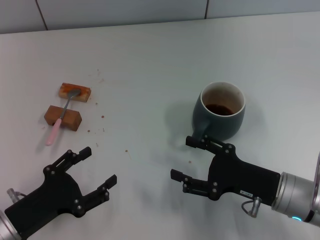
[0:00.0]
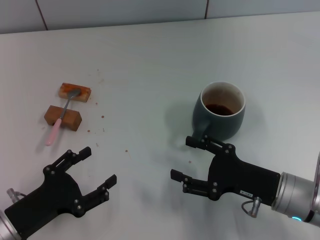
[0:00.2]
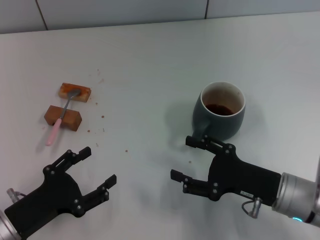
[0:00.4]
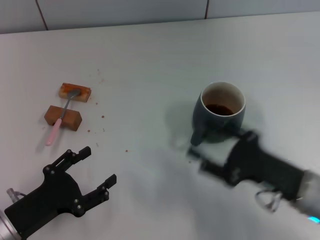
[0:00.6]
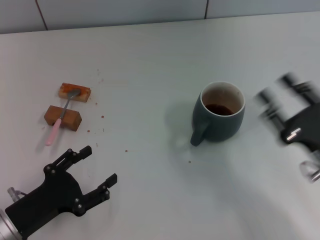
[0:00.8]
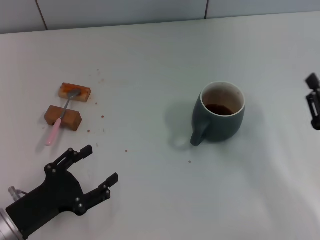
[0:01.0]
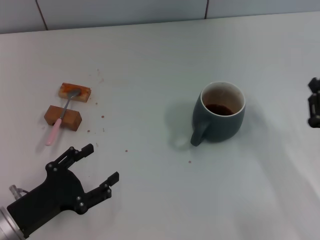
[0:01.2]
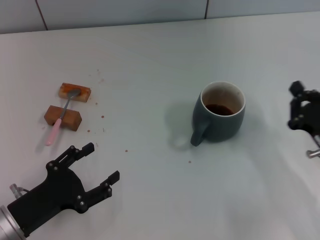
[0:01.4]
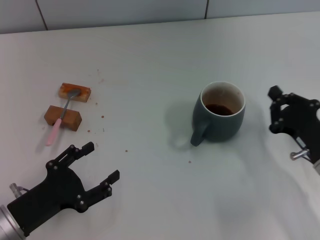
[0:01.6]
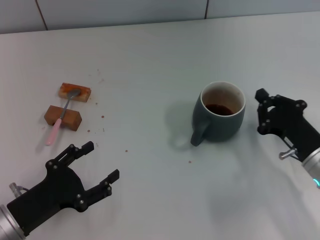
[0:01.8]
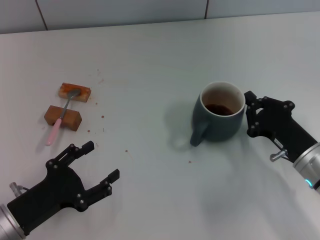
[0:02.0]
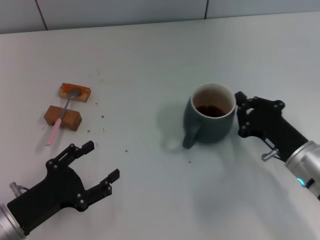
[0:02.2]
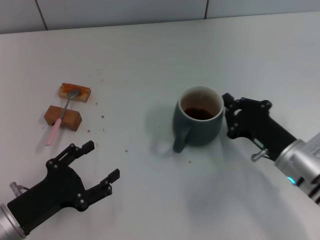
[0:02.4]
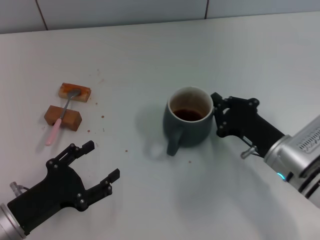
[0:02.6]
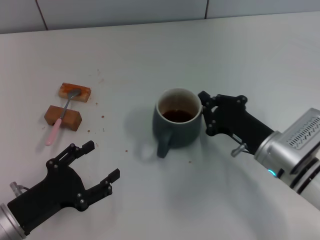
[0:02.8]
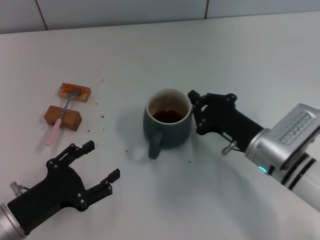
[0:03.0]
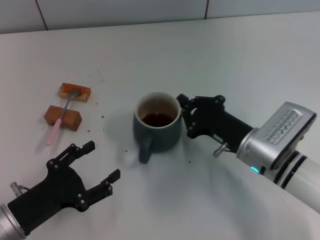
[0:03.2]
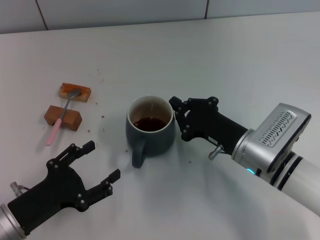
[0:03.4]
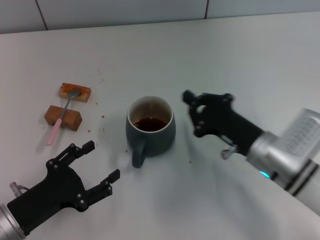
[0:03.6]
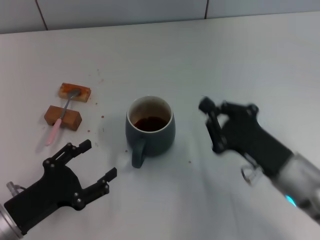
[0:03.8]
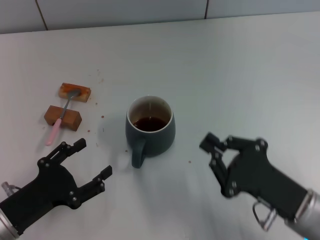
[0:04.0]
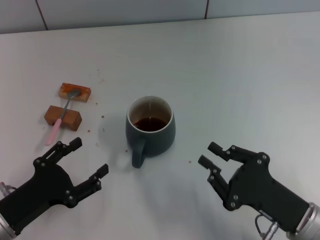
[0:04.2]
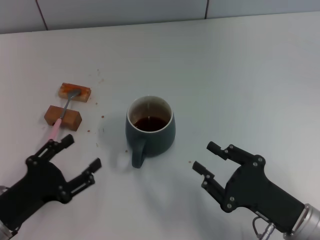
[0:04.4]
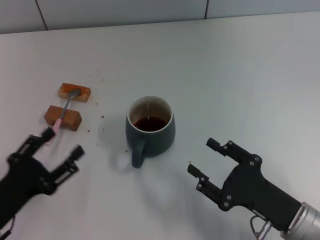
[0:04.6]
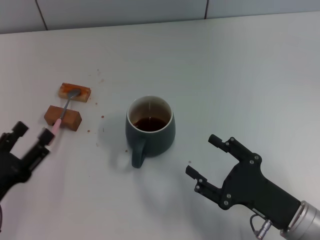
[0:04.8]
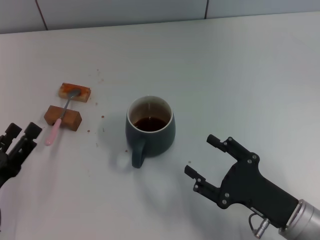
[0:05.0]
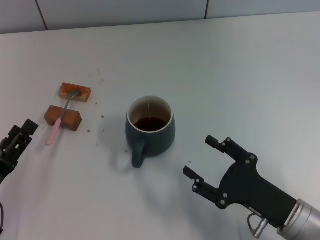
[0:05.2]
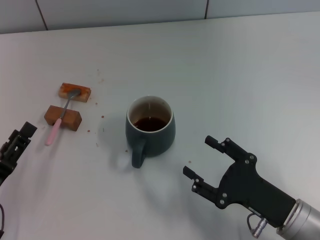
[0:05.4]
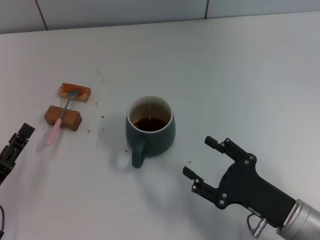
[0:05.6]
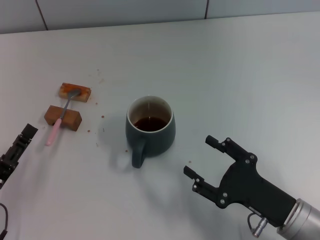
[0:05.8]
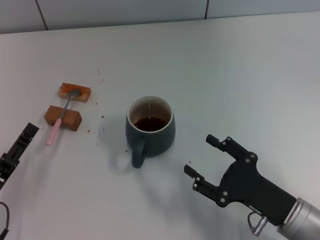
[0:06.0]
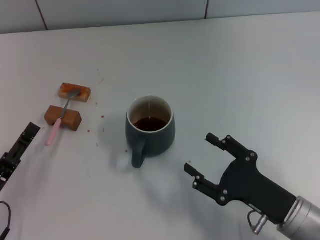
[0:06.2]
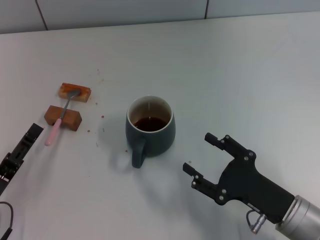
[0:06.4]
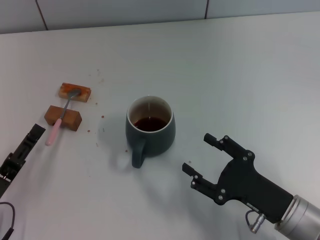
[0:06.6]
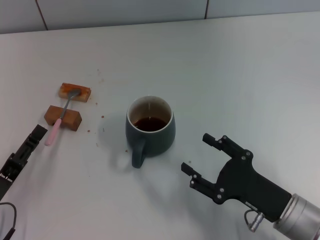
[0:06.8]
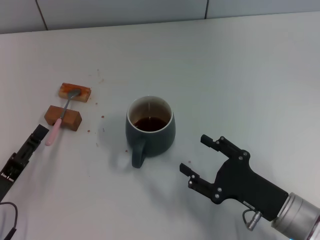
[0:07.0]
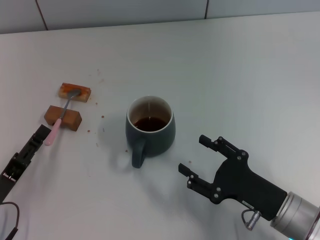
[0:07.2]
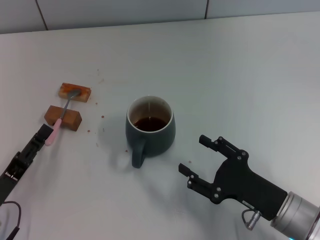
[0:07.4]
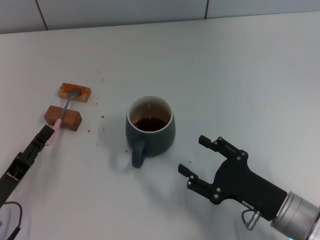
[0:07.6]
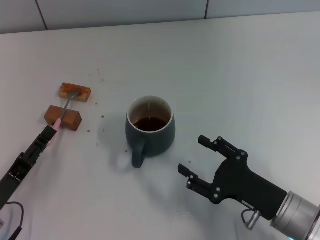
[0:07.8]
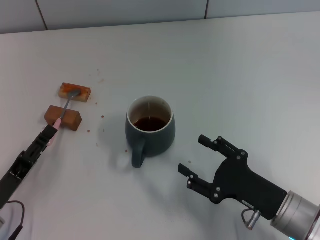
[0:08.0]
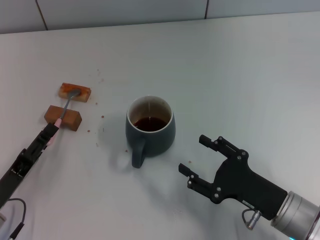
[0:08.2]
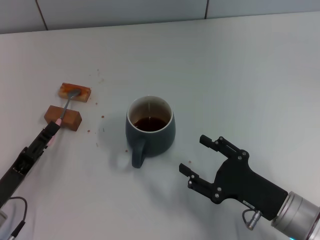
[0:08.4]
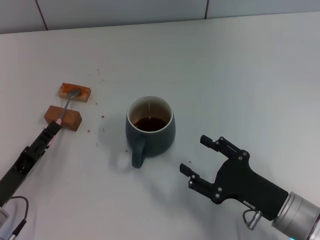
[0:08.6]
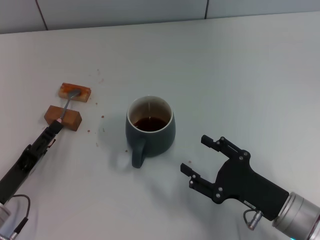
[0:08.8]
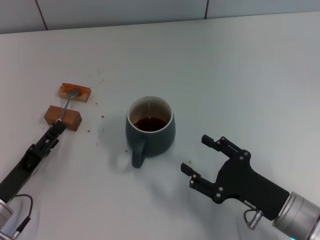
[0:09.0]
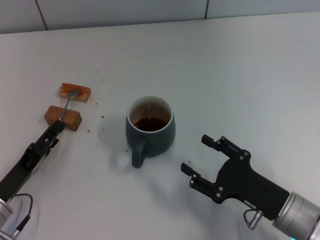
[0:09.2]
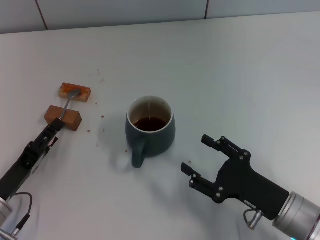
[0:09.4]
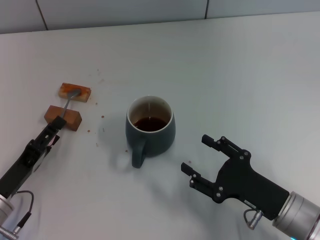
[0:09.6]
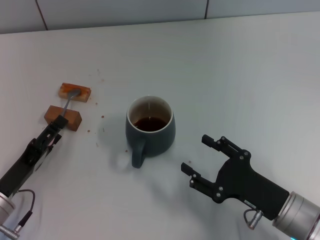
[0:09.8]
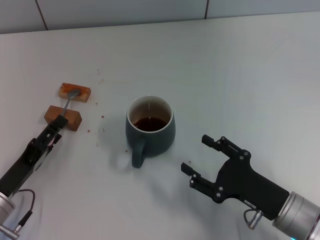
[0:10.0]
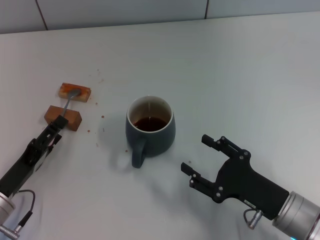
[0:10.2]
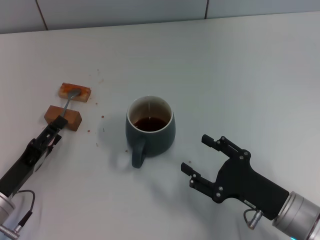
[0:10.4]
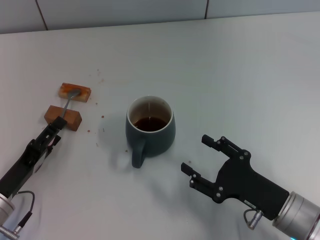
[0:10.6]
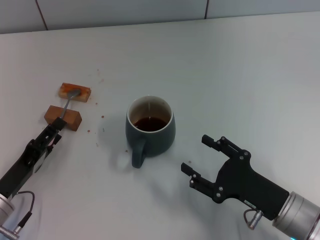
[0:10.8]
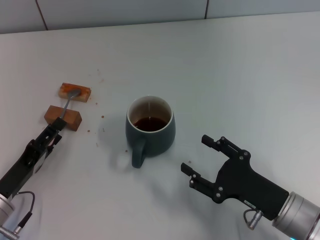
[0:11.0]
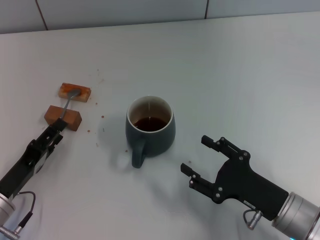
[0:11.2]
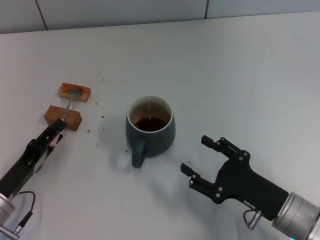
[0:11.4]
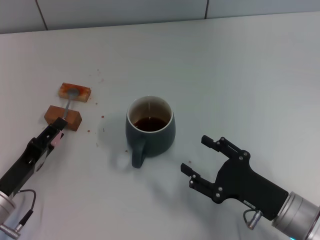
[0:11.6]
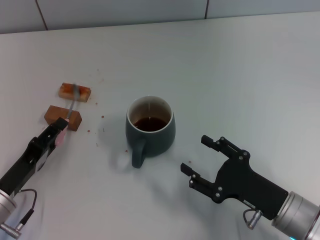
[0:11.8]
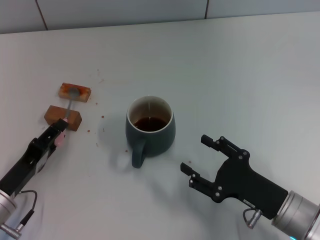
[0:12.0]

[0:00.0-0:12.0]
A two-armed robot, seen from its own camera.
Task of the whole recording: Move the grey cup to the center, lift the pink spoon, stir it three times in the cup, and put the spoon into the cup.
Step, 0:00.0 to 0:03.6: Move the cup with coffee to the center of view with the right gripper.
0:00.0 to 0:01.6: The right gripper heads to the right, covering approximately 5 cm, and closes its fingers.
0:01.6 to 0:03.0: The right gripper heads to the left, covering about 10 cm.
0:03.0 to 0:04.4: The right gripper travels backward by approximately 10 cm.
0:04.4 to 0:06.0: The right gripper opens up.
0:06.0 to 0:09.0: The grippers make only small movements.
0:09.0 to 0:10.4: Both grippers stay put.
0:10.4 to 0:12.0: The left gripper closes.

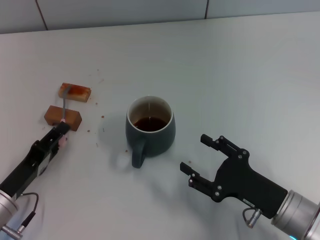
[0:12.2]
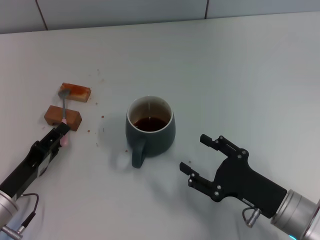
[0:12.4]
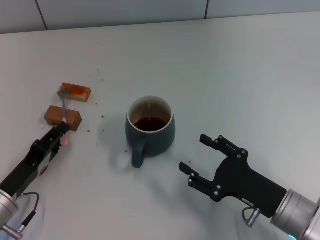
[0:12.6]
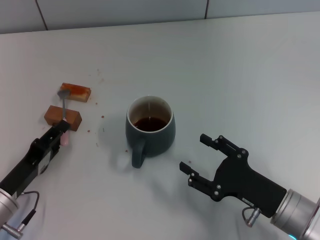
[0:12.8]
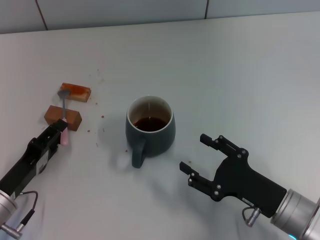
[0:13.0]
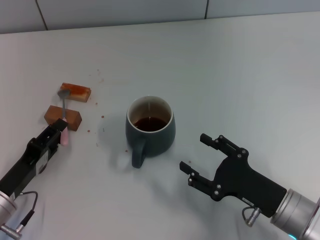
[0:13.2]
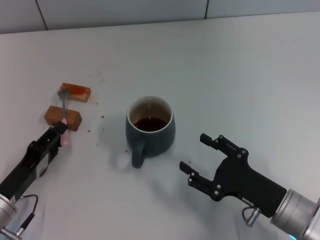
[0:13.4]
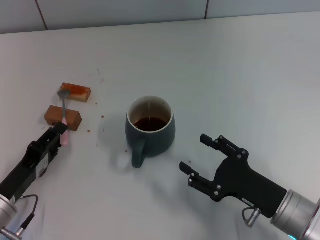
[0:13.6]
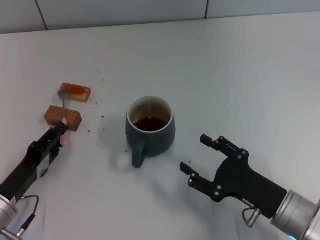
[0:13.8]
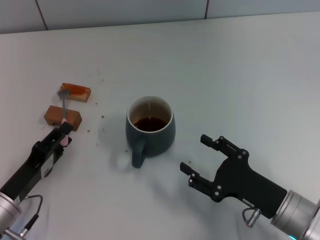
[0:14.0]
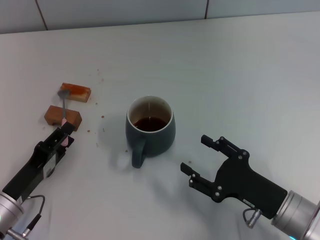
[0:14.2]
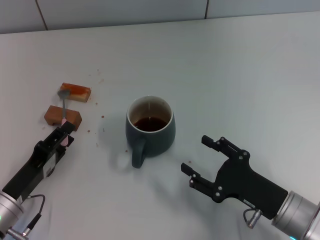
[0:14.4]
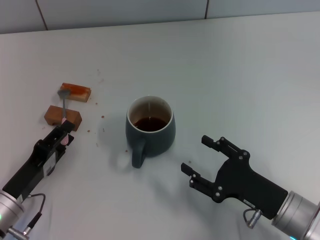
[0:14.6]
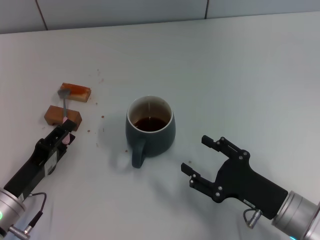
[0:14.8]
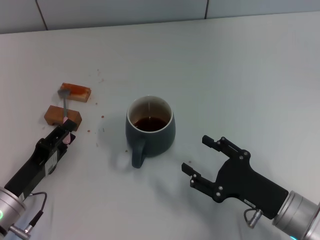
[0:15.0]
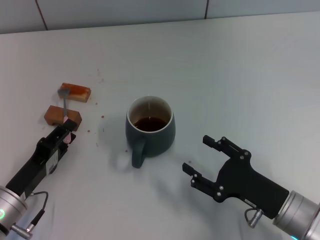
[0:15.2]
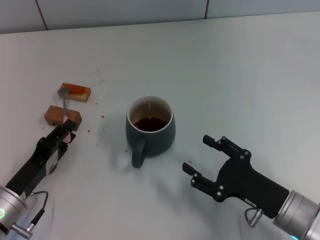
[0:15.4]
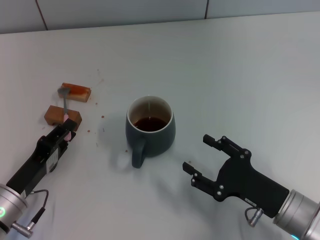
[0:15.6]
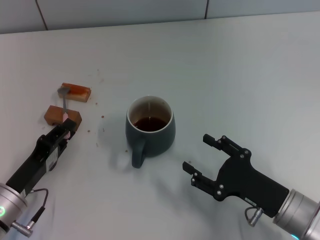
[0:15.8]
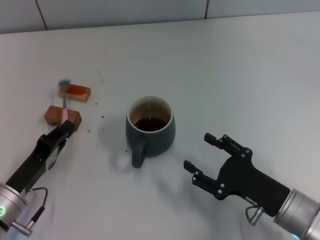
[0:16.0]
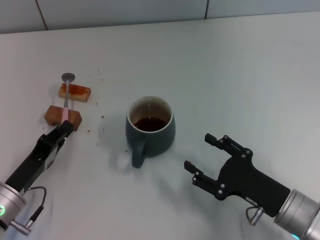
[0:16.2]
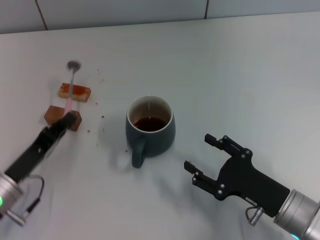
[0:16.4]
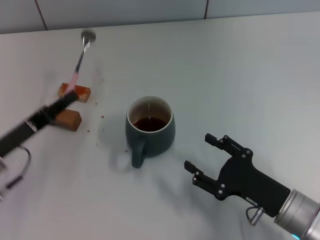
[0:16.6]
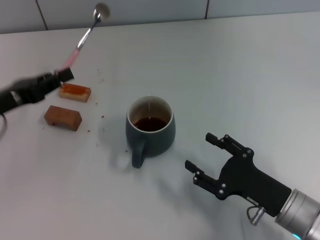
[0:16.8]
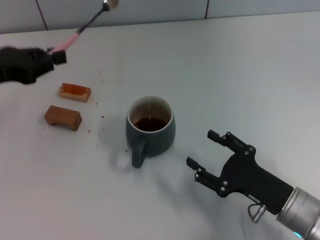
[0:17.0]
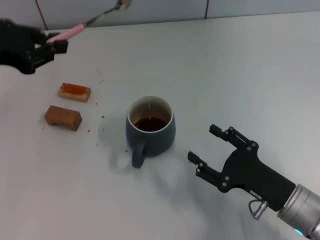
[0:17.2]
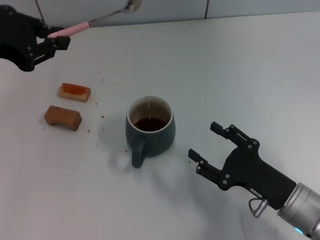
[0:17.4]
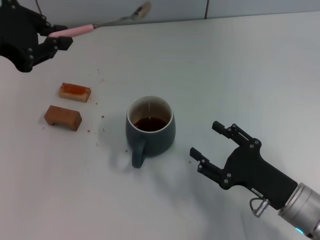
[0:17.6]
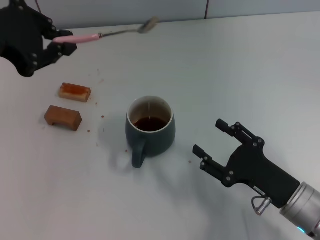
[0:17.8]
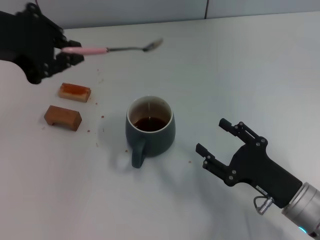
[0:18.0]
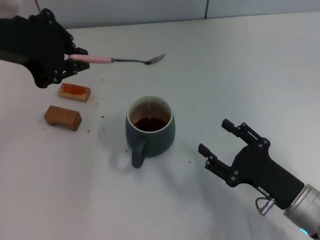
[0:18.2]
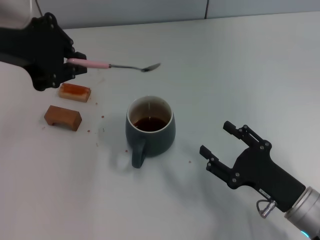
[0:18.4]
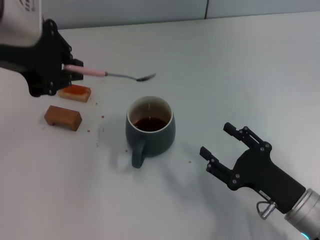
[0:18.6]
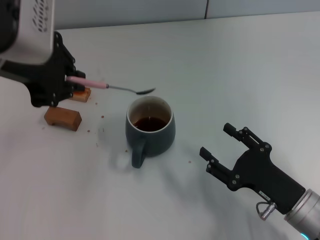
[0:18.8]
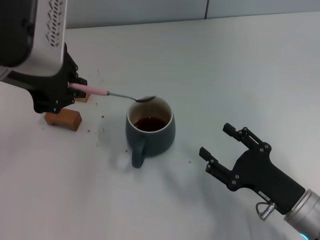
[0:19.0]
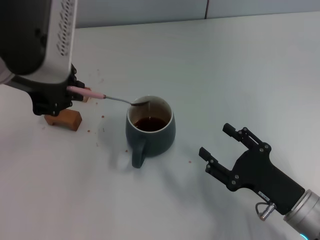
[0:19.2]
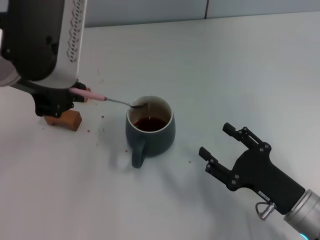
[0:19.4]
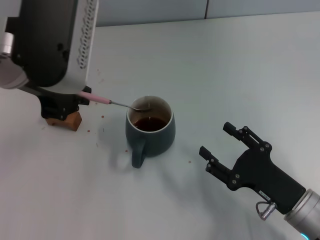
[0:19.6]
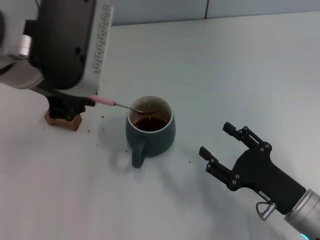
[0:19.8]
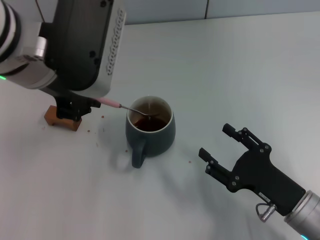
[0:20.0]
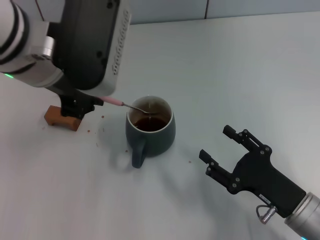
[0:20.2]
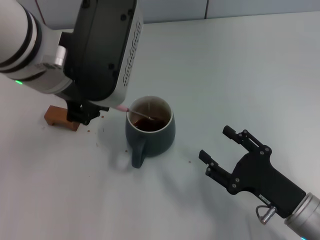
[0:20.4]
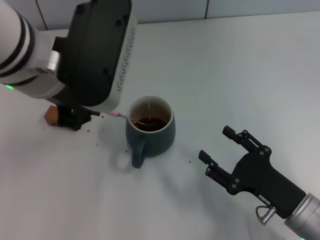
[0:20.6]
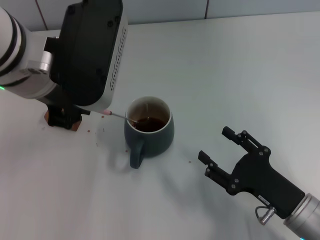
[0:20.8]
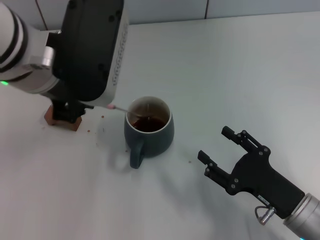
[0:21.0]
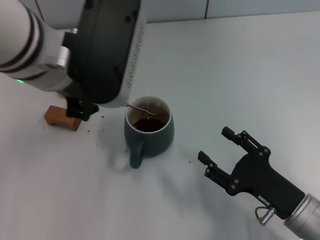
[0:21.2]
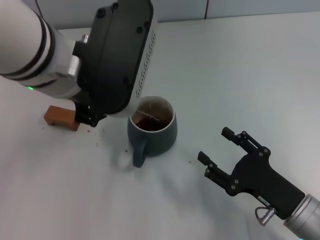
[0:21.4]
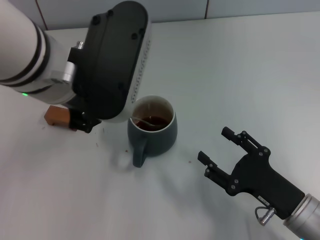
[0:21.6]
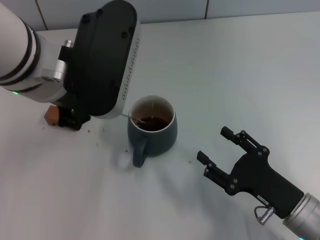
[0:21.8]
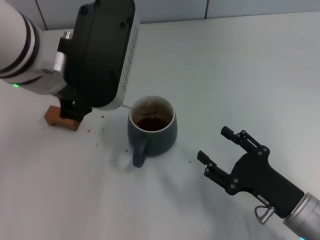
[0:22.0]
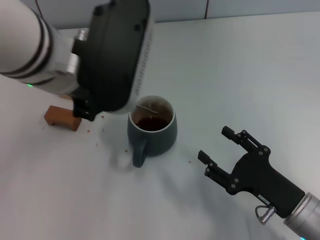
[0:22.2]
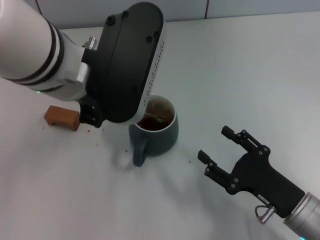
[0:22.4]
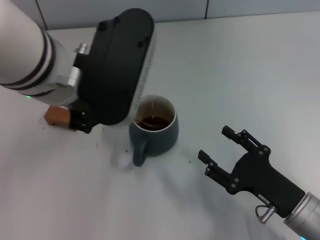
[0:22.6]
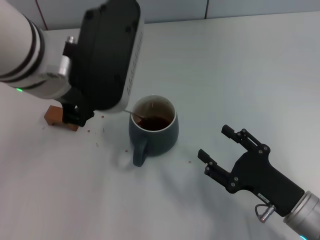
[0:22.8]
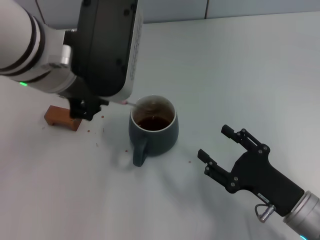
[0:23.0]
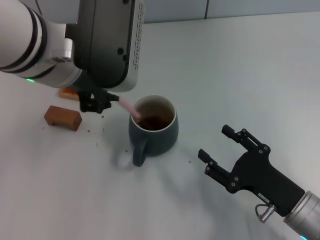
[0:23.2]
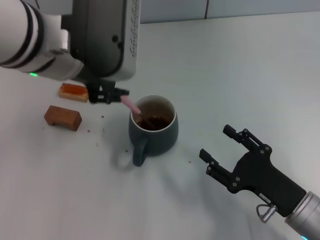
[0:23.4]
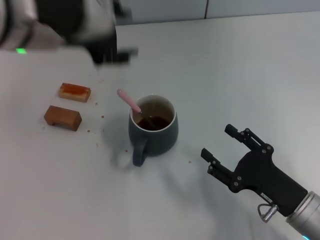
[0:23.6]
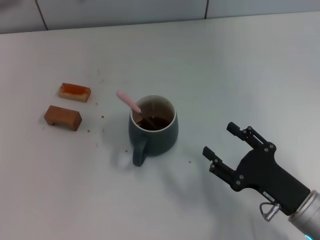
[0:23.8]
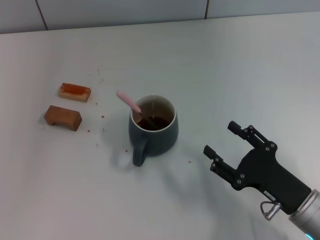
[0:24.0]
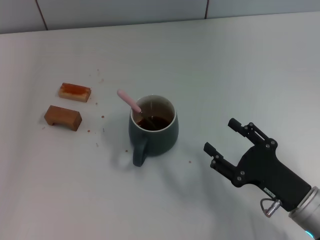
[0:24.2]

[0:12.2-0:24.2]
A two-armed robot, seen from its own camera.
Task of the whole recording: Move the grey cup to the center, lift the pink spoon, stir it three times in the cup, and put the spoon into the cup.
Step, 0:12.2 to 0:16.4: Pick up the spoon with the left gripper.
Step, 0:16.8 to 0:23.4: Stir the coffee in the cup with the left gripper.
0:12.2 to 0:13.8: Both grippers stay about where they are.
0:13.8 to 0:15.2: There are only small adjustments of the grippers.
0:15.2 to 0:16.6: The left gripper is displaced forward and upward by roughly 10 cm, and closes its fingers.
0:16.6 to 0:18.2: The left gripper moves upward, approximately 25 cm.
0:18.2 to 0:19.8: The left gripper travels to the right by approximately 5 cm.
0:19.8 to 0:22.6: The grippers move only a little.
0:22.6 to 0:24.2: The left gripper moves to the left, approximately 15 cm, and opens its fingers.
